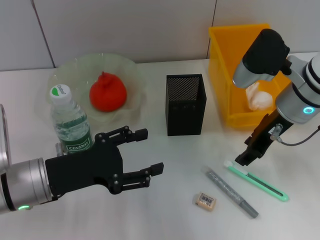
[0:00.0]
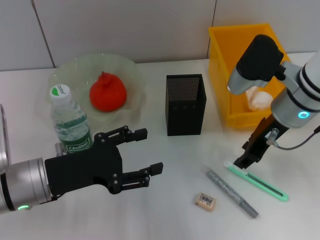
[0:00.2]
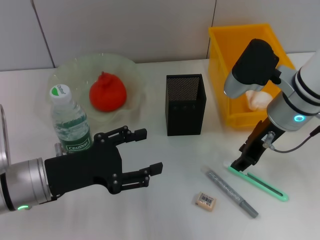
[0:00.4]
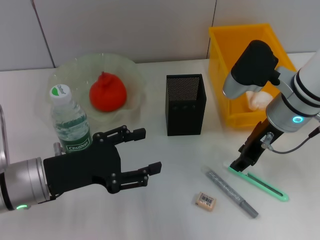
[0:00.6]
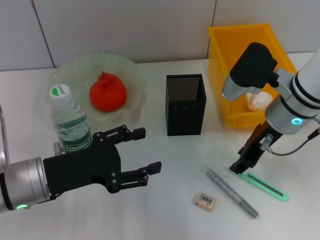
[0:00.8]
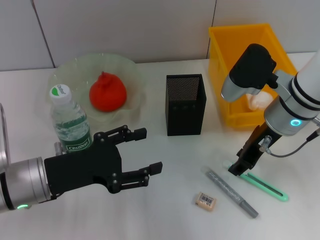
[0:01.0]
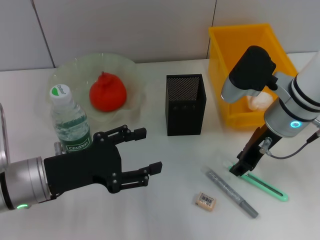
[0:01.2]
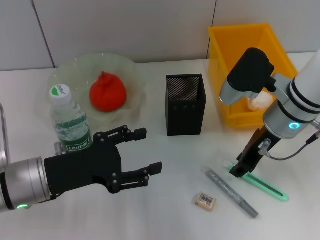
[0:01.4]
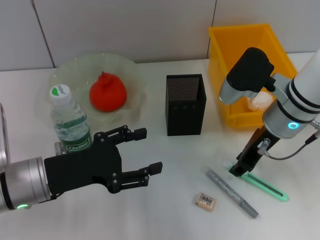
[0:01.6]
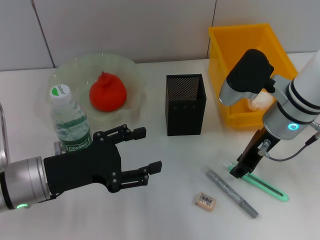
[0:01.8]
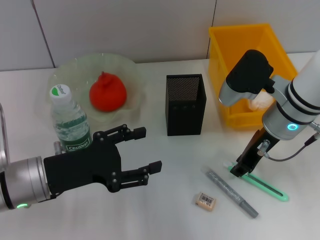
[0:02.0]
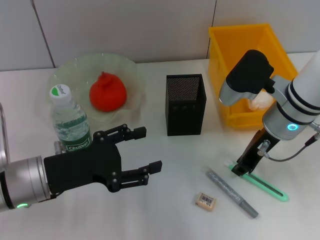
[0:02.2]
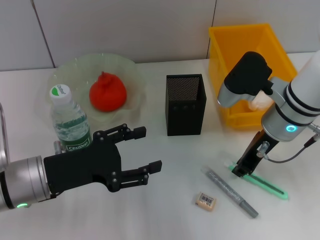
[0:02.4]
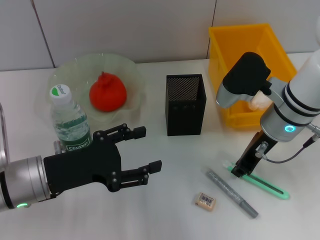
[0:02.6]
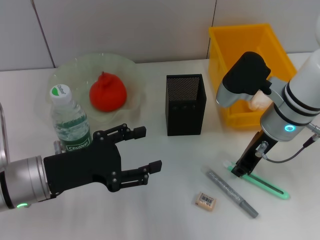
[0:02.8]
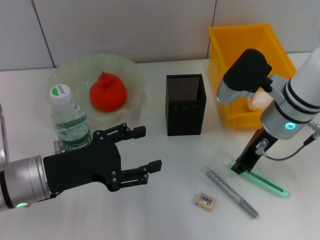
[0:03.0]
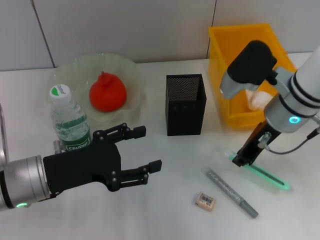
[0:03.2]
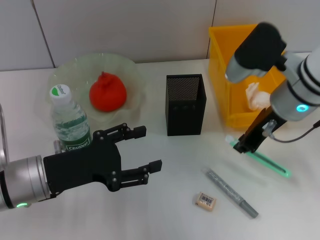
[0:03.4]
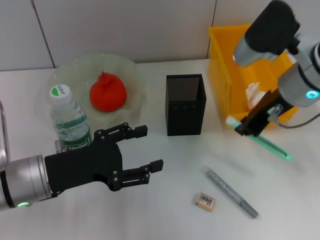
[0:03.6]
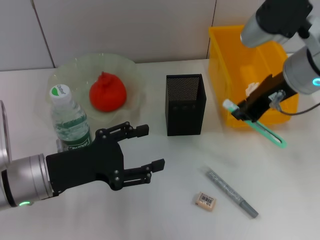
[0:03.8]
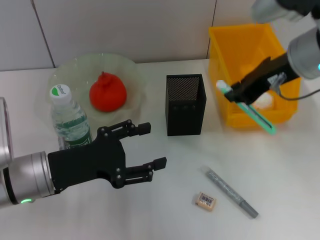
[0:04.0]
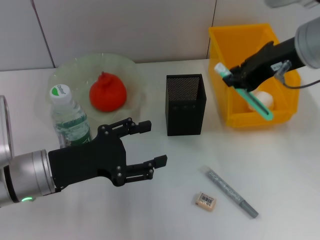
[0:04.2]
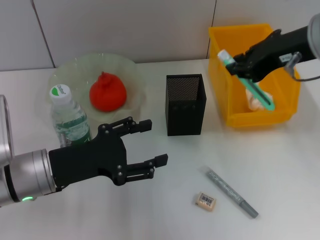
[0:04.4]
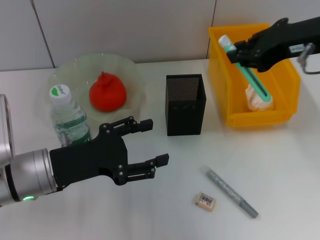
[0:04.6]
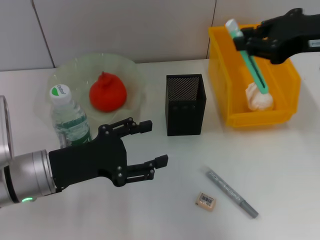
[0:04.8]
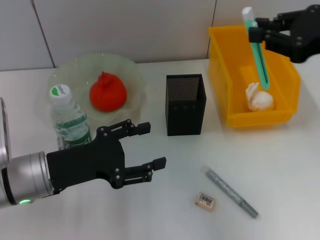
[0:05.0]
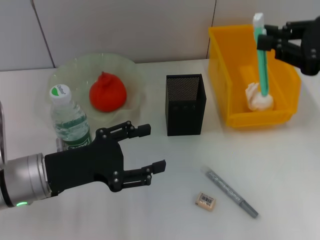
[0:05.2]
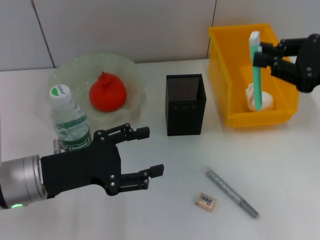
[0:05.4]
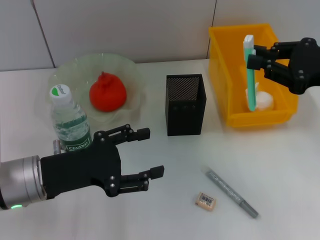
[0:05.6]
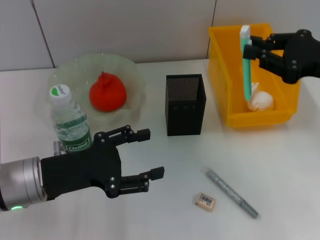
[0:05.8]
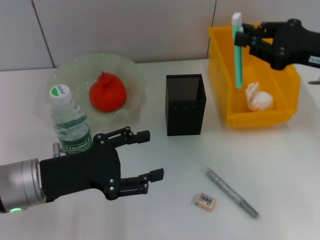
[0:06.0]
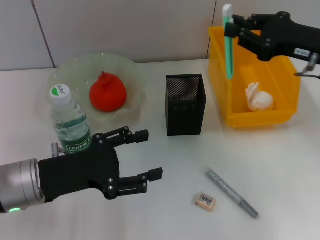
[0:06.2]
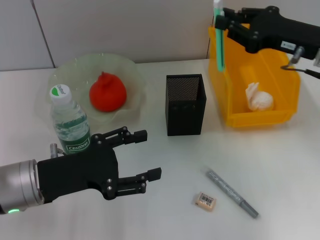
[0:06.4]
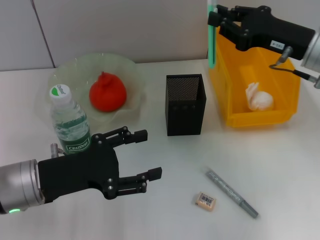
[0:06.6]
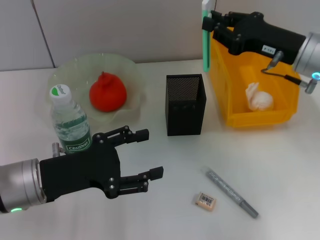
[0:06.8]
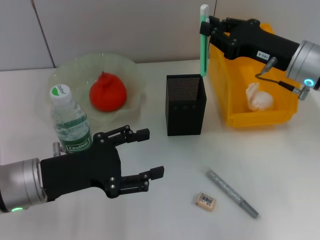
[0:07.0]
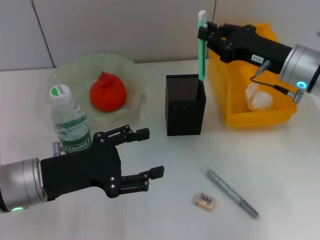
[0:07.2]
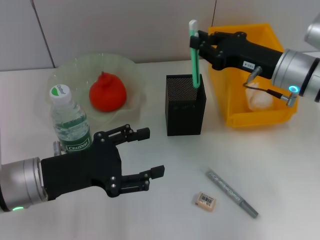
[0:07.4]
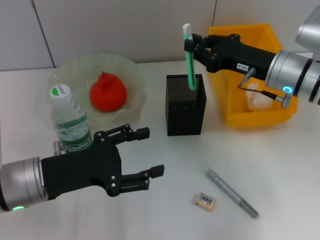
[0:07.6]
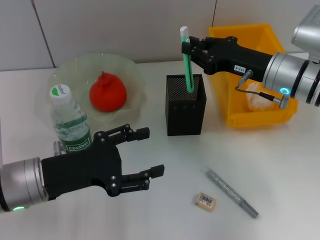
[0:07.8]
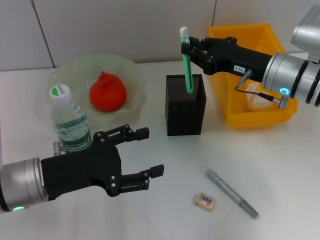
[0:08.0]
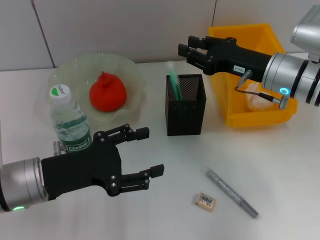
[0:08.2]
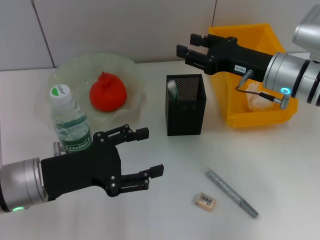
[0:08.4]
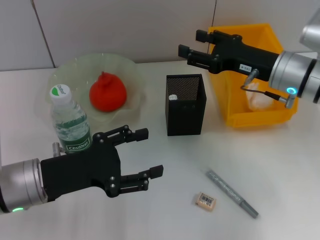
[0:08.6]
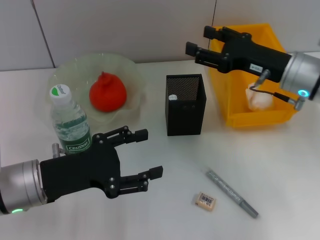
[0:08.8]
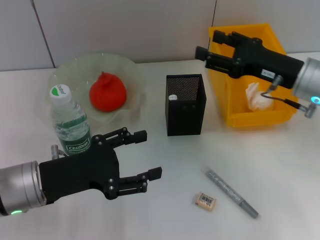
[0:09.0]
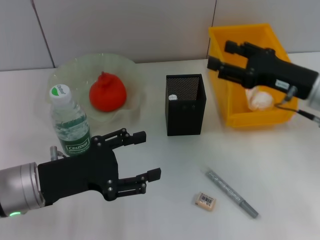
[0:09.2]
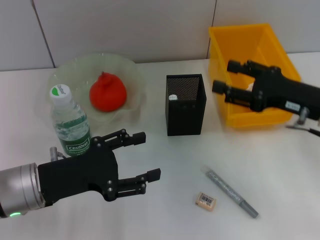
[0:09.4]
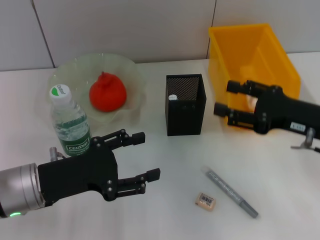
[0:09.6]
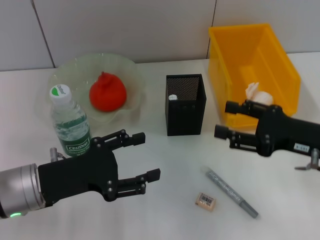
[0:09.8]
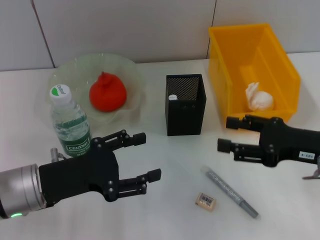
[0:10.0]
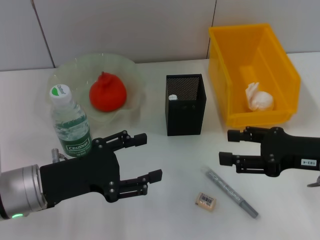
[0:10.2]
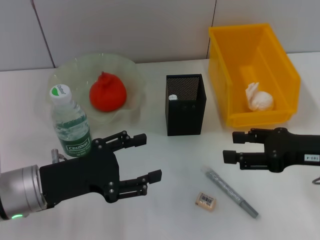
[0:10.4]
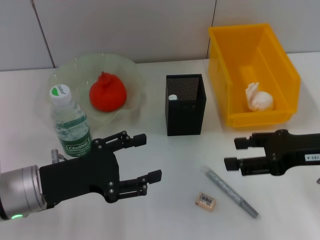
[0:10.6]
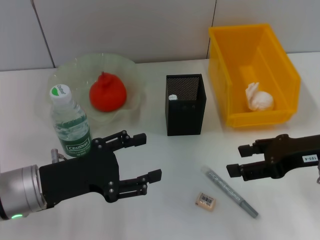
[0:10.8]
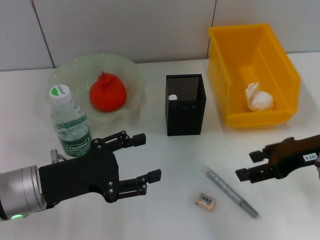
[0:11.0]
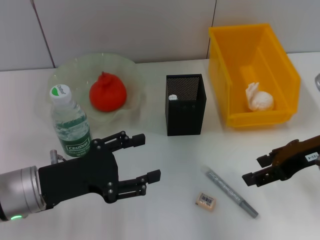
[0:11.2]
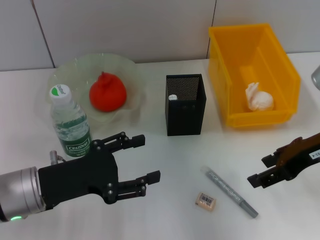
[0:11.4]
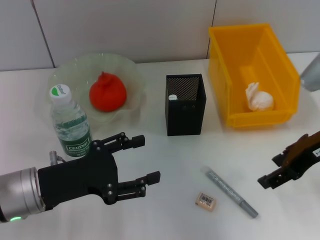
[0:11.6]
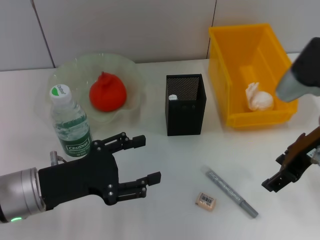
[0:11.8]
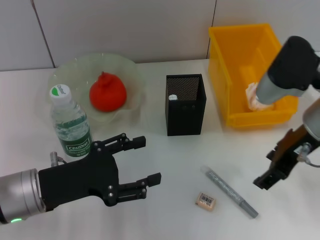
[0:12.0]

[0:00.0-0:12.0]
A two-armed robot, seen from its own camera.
Step, 0:00.0 to 0:02.6: Grab the blue utility knife with the right hand.
Step, 0:02.8 to 0:08.8: Place the blue utility knife into the pen holder with the right hand.
0:00.0 to 0:01.6: The right gripper closes.
0:01.6 to 0:03.0: The right gripper closes its fingers.
0:03.0 to 0:04.4: The right gripper moves upward, approximately 15 cm.
0:04.4 to 0:06.0: The right gripper heads to the right and downward, covering approximately 10 cm.
0:06.0 to 0:07.6: The right gripper goes approximately 10 cm to the left and downward.
0:07.6 to 0:09.0: The right gripper opens up.
0:09.0 to 0:10.4: The right gripper is displaced backward by approximately 10 cm.
0:10.4 to 0:12.0: The right gripper goes approximately 10 cm to the left and upward.

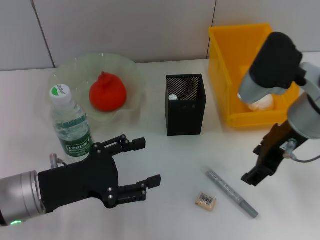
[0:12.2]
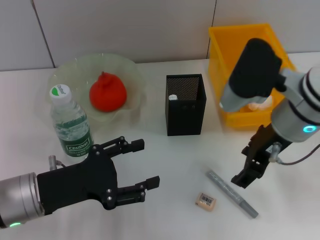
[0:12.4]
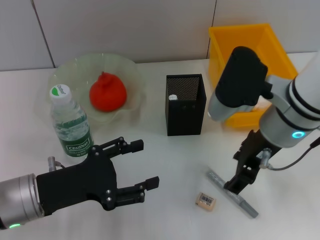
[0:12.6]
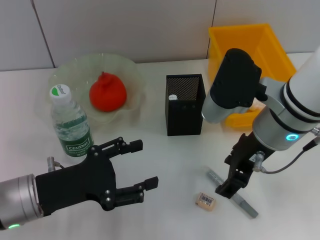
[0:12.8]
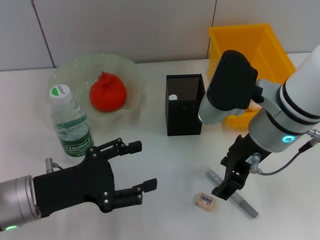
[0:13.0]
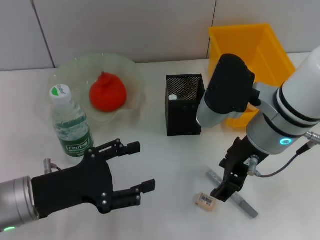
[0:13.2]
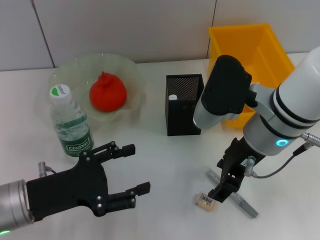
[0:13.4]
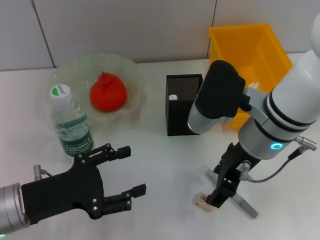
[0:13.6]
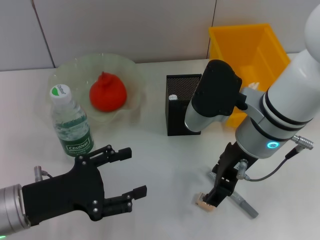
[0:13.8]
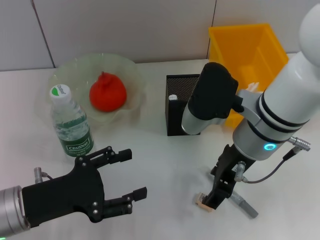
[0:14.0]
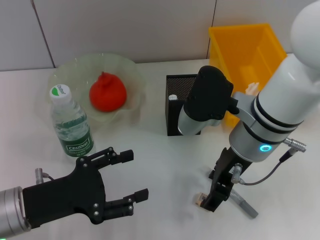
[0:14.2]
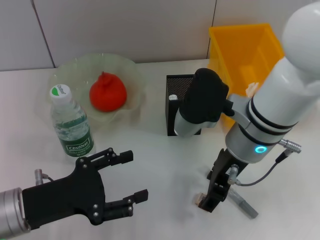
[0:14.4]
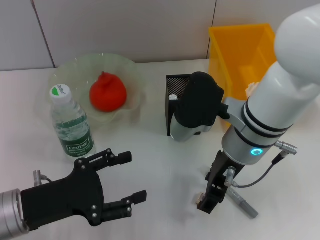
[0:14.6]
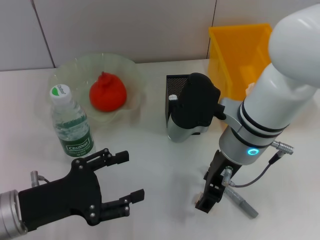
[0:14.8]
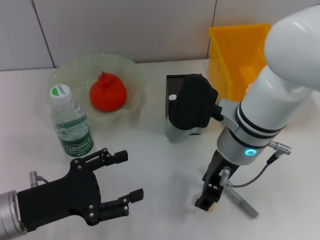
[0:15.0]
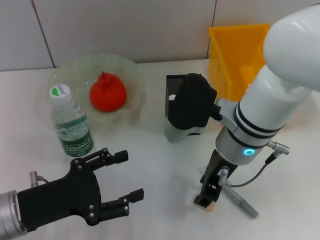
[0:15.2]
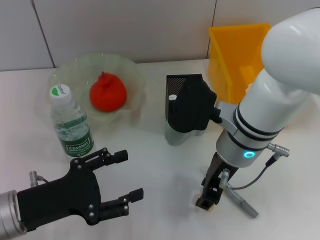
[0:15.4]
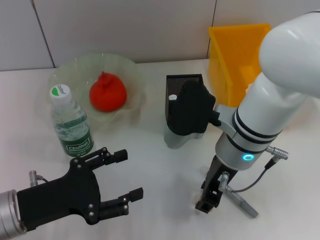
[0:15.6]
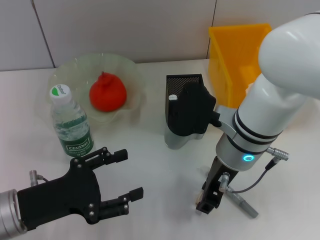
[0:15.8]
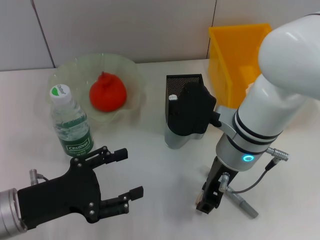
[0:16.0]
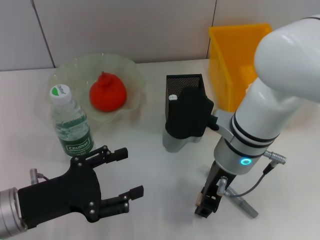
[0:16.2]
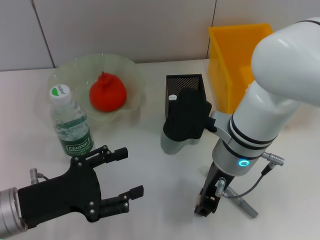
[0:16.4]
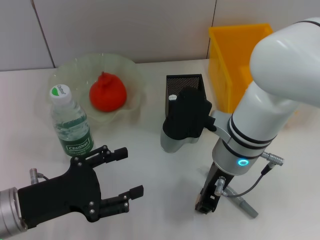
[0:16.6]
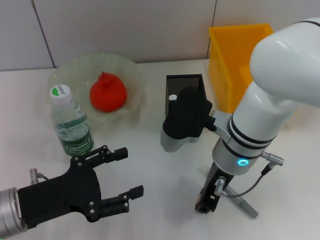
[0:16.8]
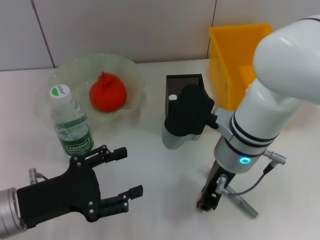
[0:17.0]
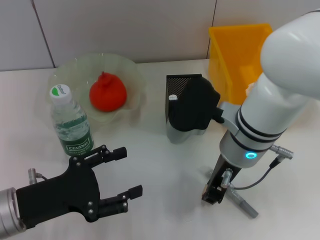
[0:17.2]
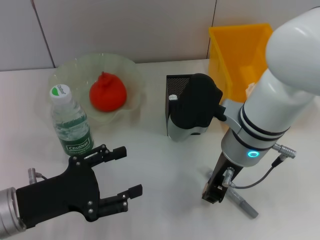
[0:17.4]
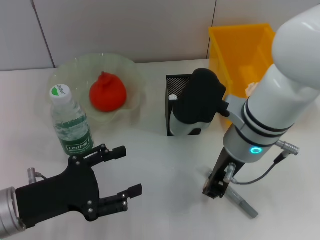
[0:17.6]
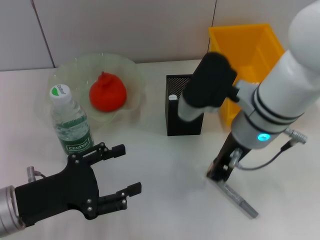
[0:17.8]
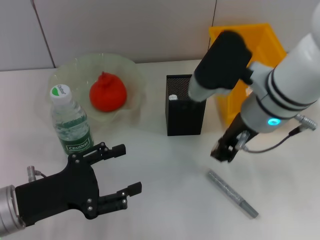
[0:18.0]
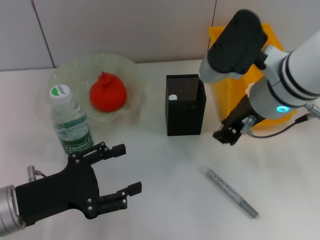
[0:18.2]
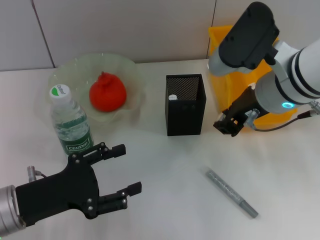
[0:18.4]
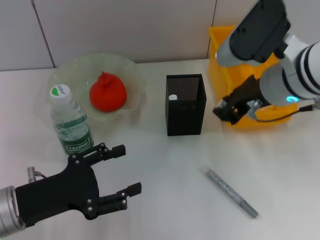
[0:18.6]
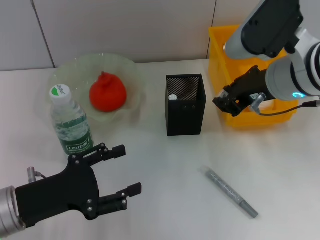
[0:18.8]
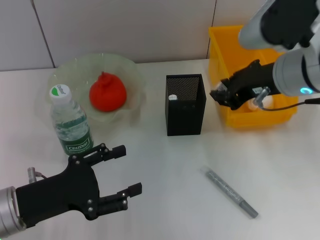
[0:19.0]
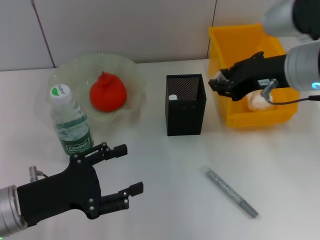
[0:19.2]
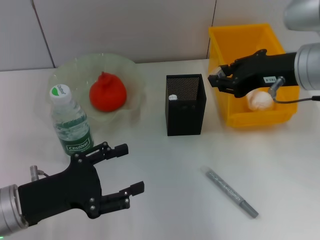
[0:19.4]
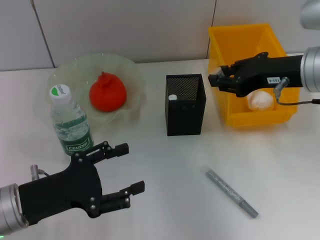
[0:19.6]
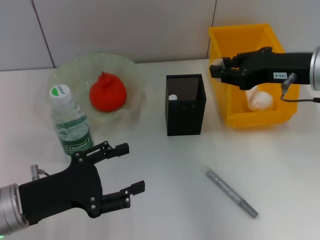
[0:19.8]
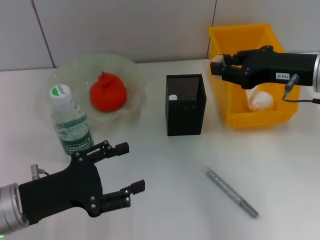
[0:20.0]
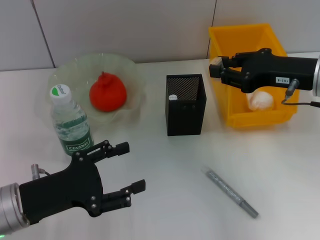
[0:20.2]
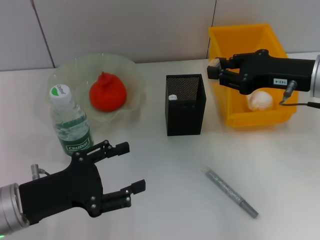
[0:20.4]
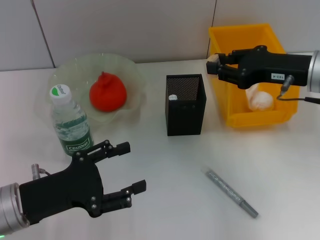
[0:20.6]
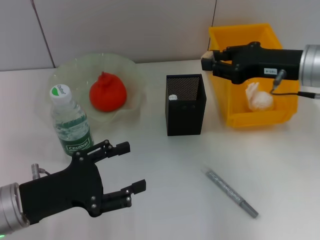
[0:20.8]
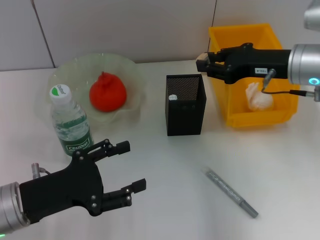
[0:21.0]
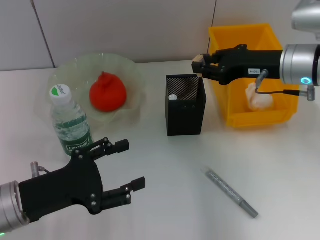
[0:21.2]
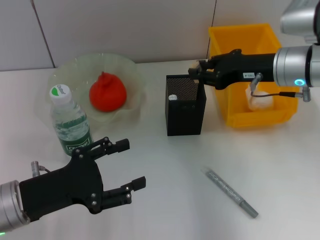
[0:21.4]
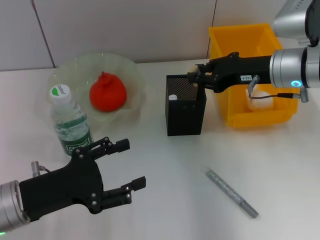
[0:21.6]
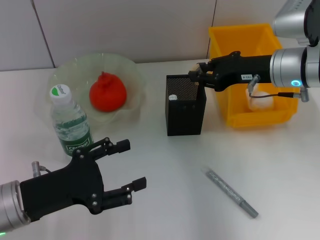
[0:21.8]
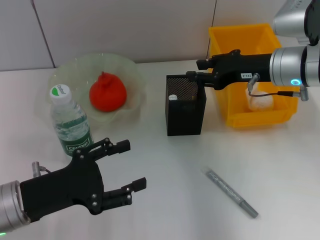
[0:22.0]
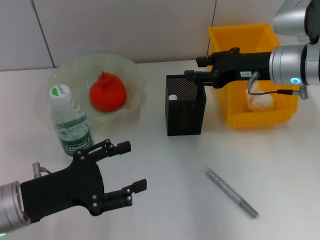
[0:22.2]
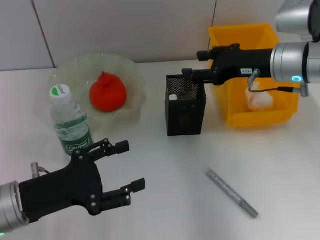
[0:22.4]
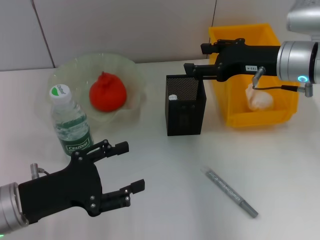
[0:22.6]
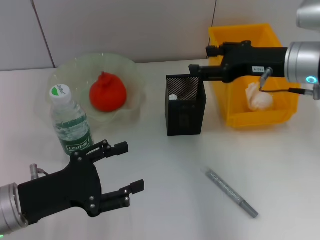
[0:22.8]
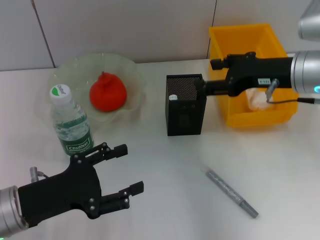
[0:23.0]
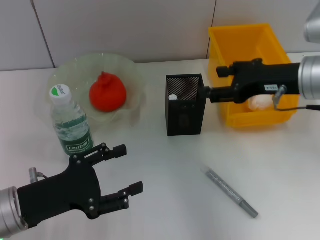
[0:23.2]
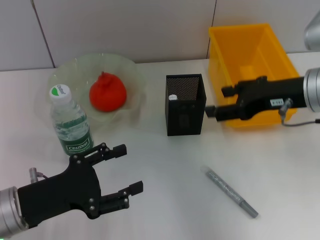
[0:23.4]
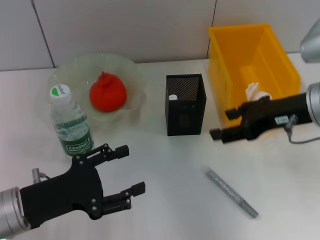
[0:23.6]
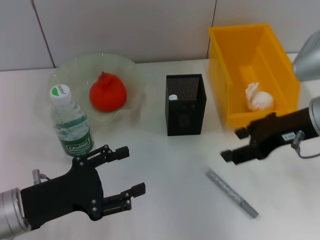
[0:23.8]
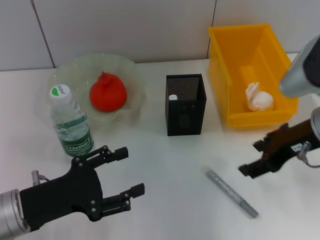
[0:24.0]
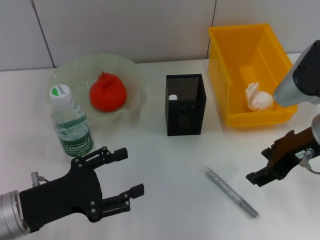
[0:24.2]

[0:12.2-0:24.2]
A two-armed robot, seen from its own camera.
Step, 0:12.2 to 0:16.4: Grab the eraser with the right hand.
Step, 0:16.8 to 0:22.4: Put the eraser into the pen holder with the right hand.
0:12.2 to 0:13.8: The right gripper moves to the left, about 5 cm.
0:13.8 to 0:15.2: The grippers move only a little.
0:15.2 to 0:16.6: The right gripper closes up.
0:16.6 to 0:18.2: The right gripper goes roughly 5 cm upward.
0:18.2 to 0:19.8: The right gripper shifts approximately 10 cm to the right.
0:19.8 to 0:21.2: The right gripper is displaced forward by roughly 5 cm.
0:21.2 to 0:22.6: The right gripper opens.
0:22.6 to 0:24.2: The right gripper is displaced backward by about 10 cm.
